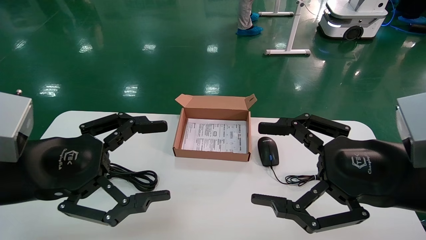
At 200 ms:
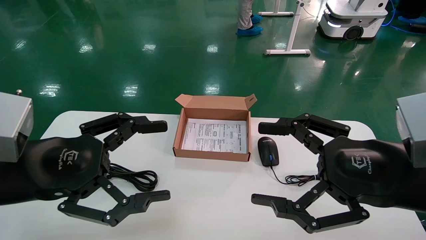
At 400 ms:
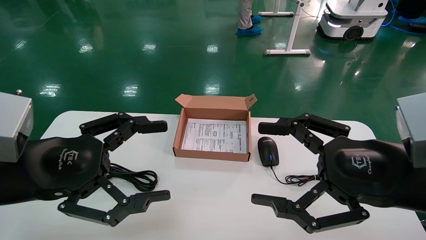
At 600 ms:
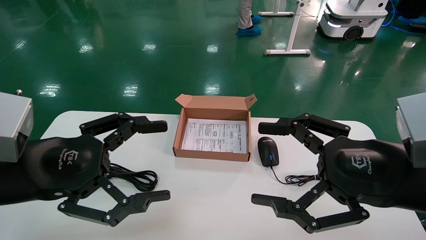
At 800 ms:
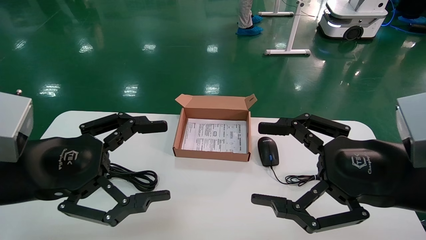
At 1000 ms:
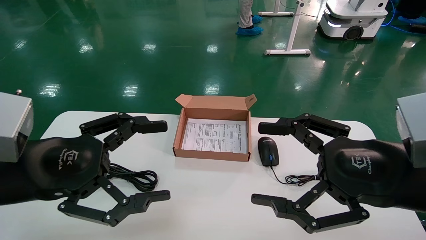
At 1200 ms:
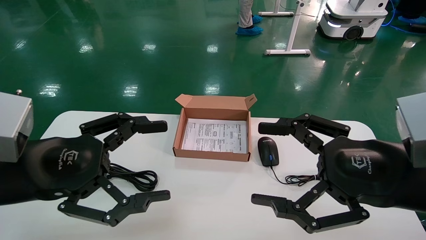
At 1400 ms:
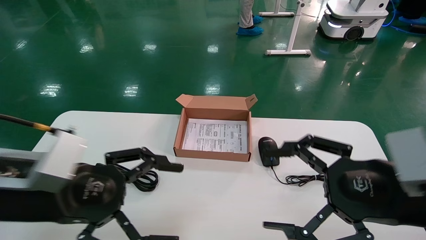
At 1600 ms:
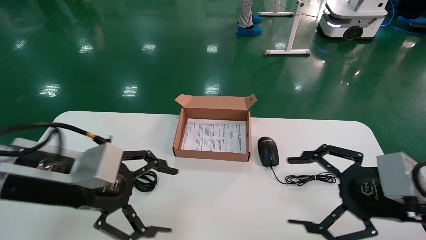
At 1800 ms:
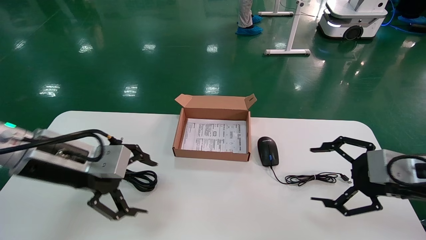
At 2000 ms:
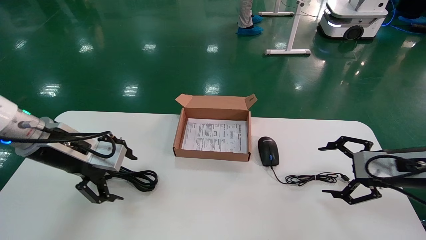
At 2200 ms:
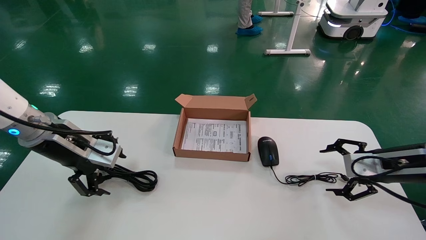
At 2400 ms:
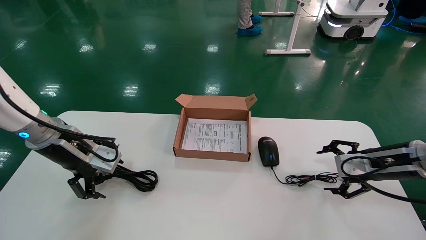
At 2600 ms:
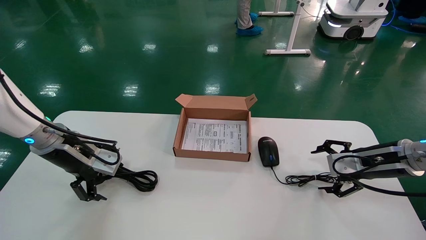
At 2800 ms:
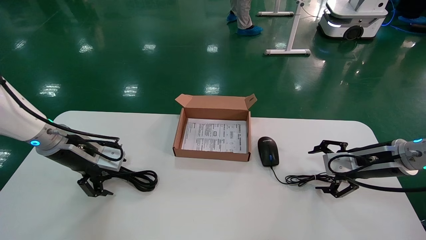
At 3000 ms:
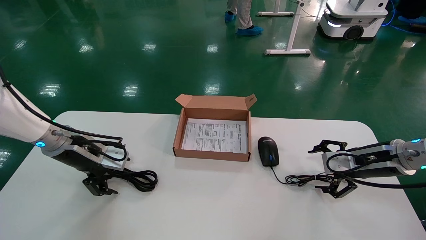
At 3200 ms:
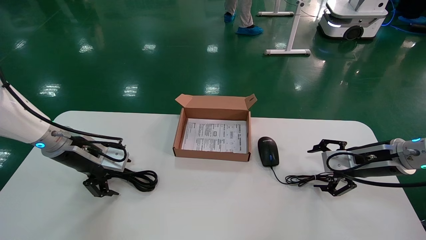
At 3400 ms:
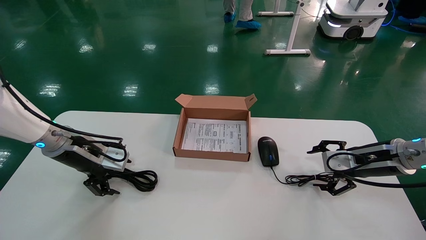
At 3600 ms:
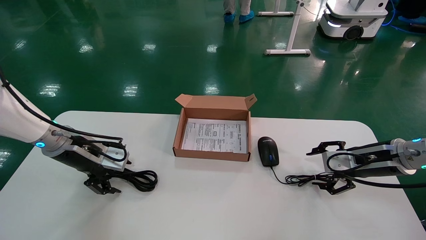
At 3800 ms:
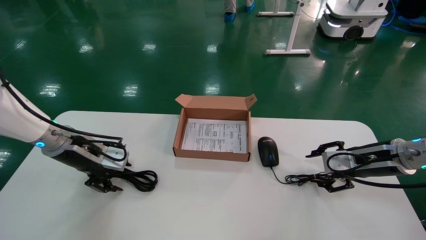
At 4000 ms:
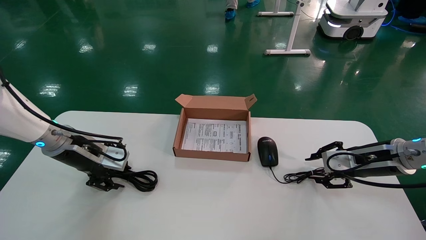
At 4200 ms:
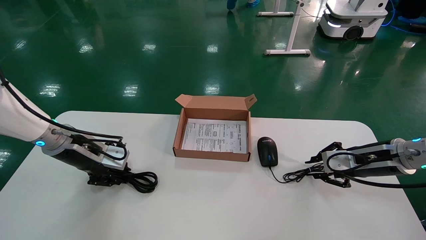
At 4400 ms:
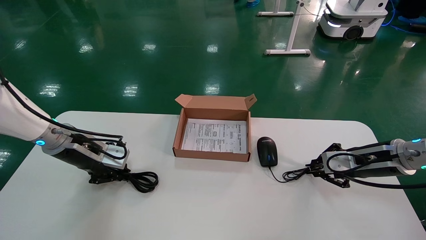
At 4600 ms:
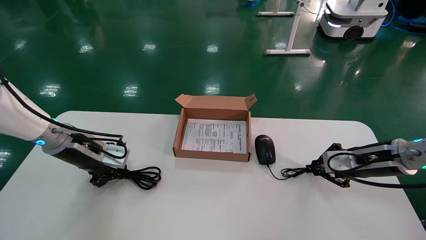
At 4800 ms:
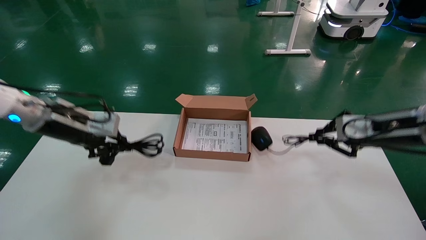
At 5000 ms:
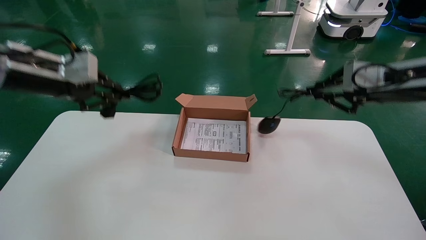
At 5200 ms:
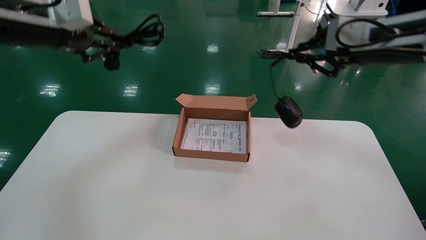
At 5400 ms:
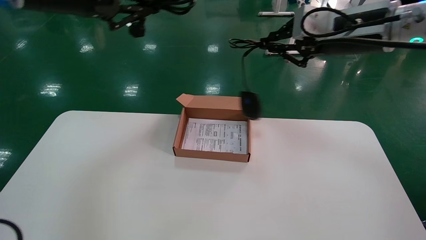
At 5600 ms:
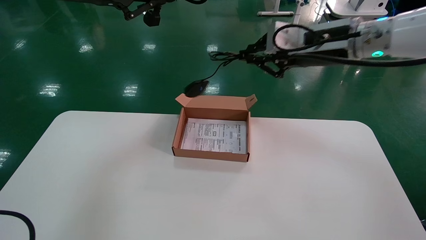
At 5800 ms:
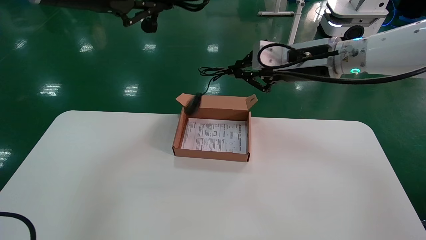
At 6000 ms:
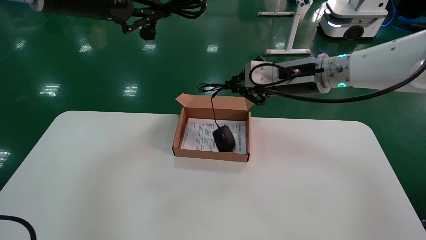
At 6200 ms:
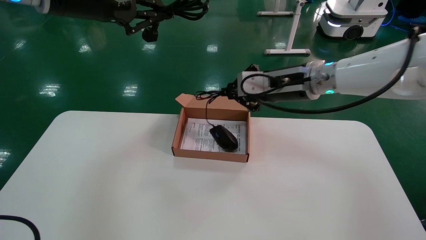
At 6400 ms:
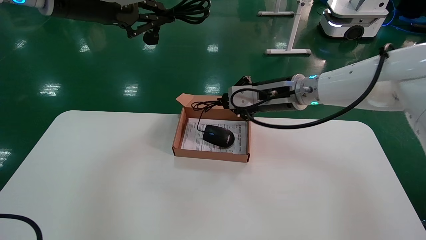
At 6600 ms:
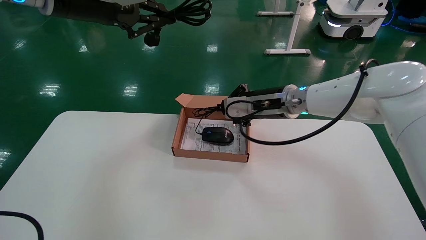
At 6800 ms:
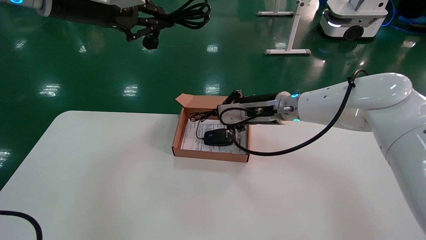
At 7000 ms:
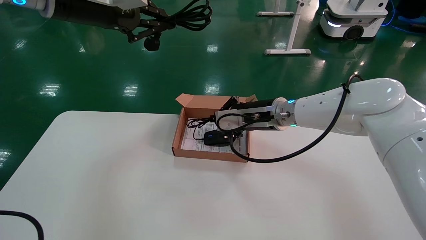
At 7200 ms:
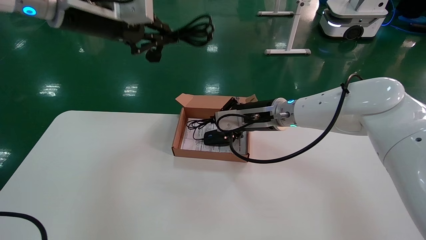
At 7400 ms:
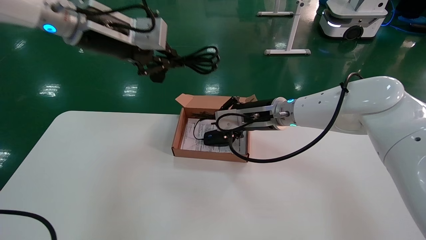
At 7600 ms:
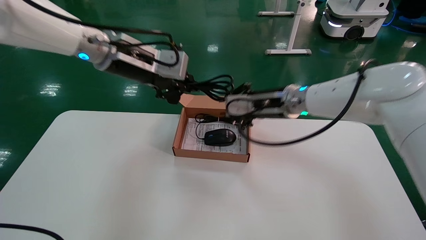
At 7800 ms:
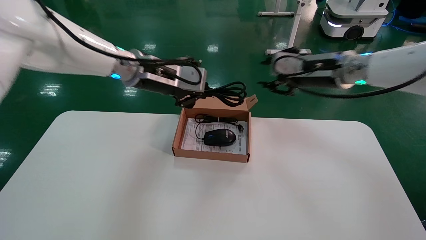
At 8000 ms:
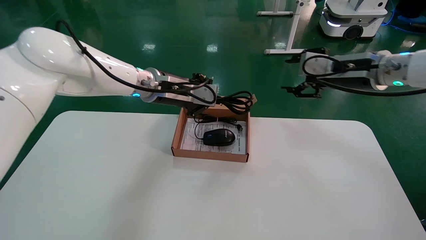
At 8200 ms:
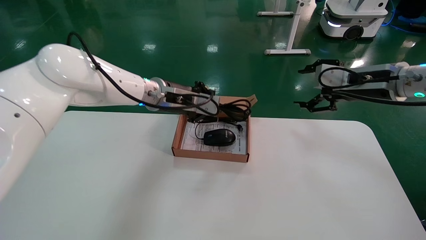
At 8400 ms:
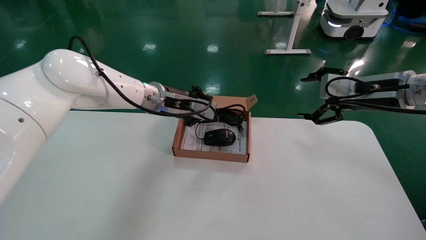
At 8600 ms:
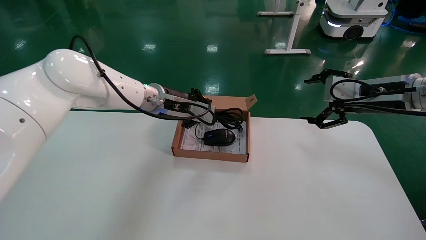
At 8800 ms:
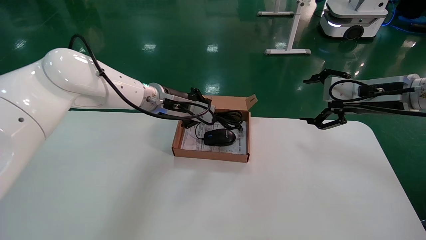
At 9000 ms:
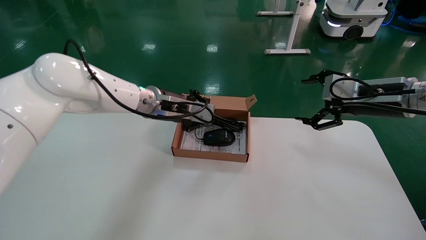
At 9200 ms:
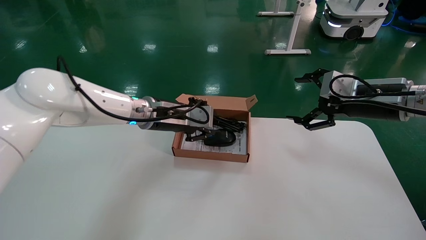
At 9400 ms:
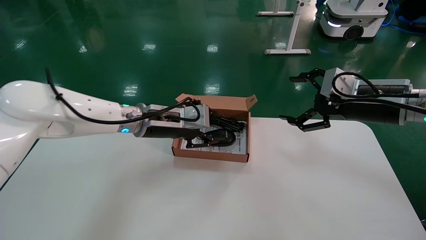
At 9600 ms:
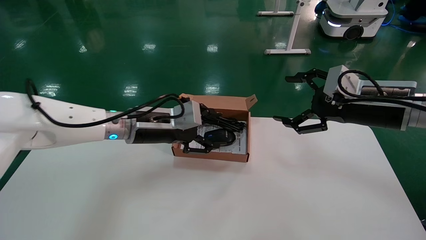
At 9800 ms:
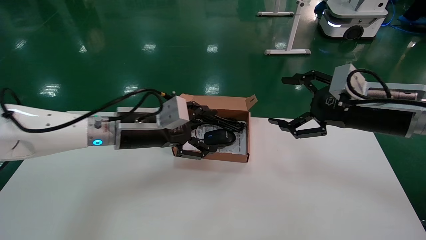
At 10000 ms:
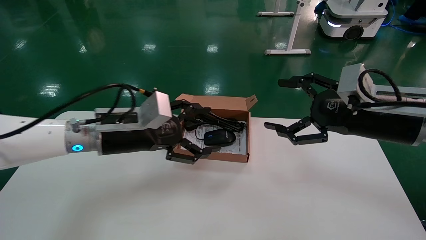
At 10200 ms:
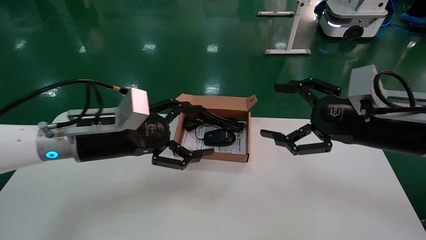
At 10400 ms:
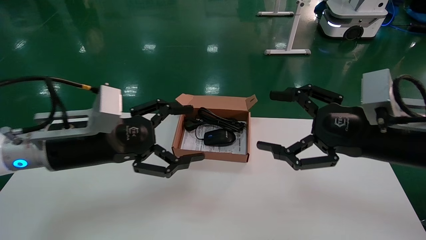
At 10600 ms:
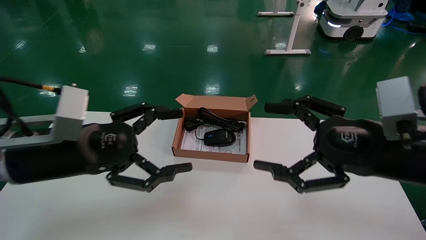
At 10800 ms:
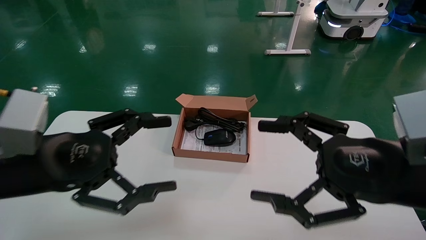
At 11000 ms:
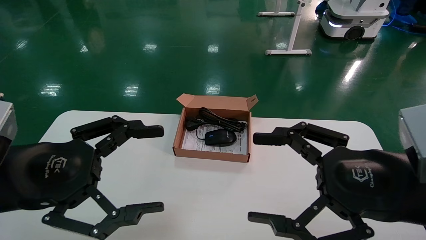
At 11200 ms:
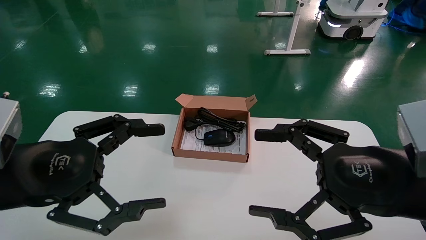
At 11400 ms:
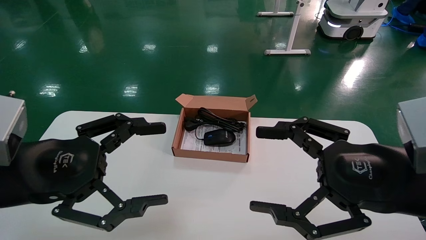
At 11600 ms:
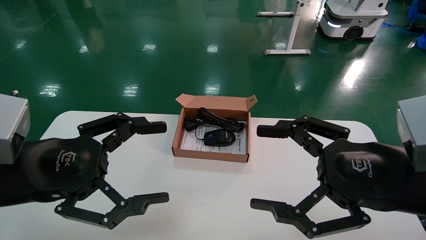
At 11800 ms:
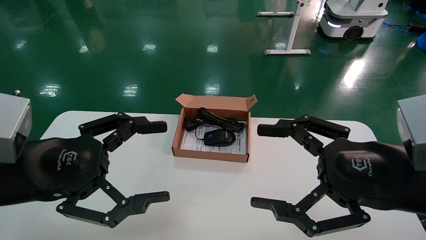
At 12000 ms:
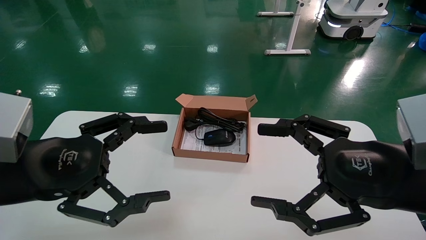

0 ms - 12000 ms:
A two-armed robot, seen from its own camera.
Step, 1600 ms - 4400 ms: Grab and lift both the mouse and power cord from the accessory packaging area at the same time.
Step, 4600 ms - 9400 ms: Place the mouse and power cord into the box.
0 ms - 1600 ms: The right gripper heads to the right, covering roughly 5 cm. Meanwhile the left gripper moves about 5 cm.
1600 ms - 3000 ms: The left gripper is displaced forward and to the left by approximately 15 cm. The right gripper is displaced forward by some 15 cm.
3000 ms - 4400 ms: The left gripper closes up; the right gripper closes up.
4400 ms - 6000 ms: The right gripper shifts some 25 cm to the left and upward; the left gripper goes some 25 cm upward.
6000 ms - 7600 ms: The right gripper travels downward by approximately 5 cm; the left gripper moves downward and to the right, approximately 10 cm.
7600 ms - 9000 ms: The right gripper is displaced to the right and backward by some 15 cm, and opens its fingers; the left gripper is displaced downward by approximately 15 cm.
9000 ms - 10400 ms: The left gripper is displaced backward and to the left by roughly 20 cm, and opens its fingers. The right gripper shifts roughly 15 cm backward.
10400 ms - 12000 ms: The two grippers go roughly 10 cm backward.

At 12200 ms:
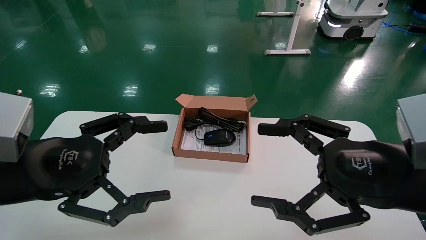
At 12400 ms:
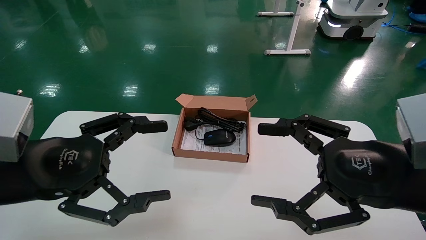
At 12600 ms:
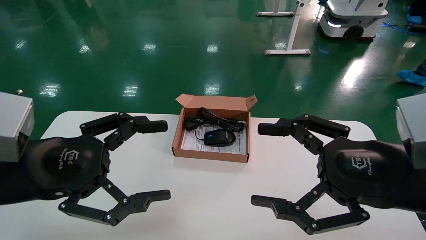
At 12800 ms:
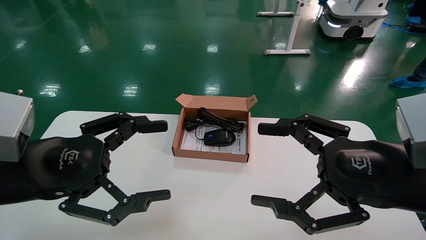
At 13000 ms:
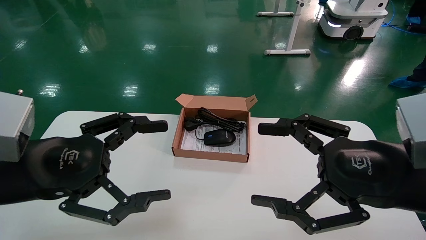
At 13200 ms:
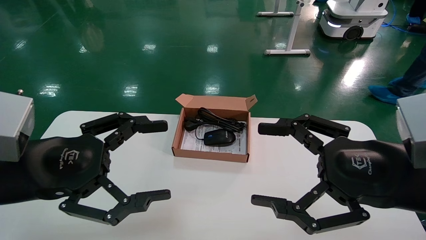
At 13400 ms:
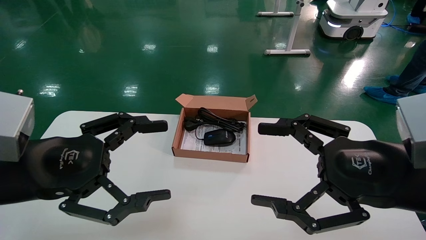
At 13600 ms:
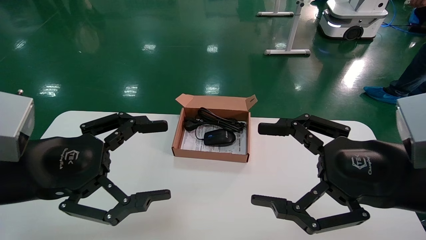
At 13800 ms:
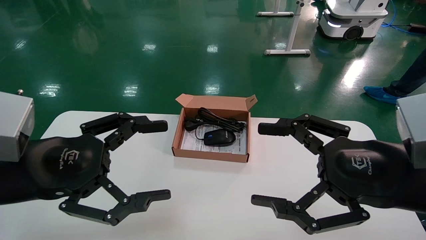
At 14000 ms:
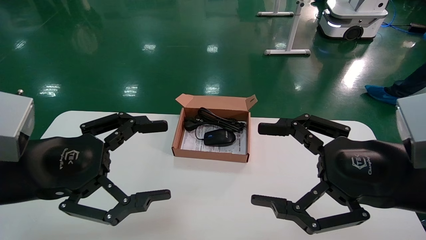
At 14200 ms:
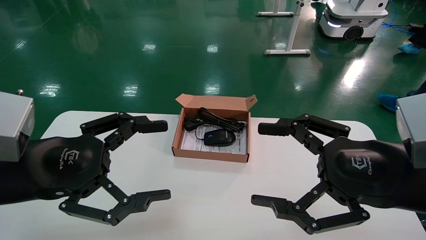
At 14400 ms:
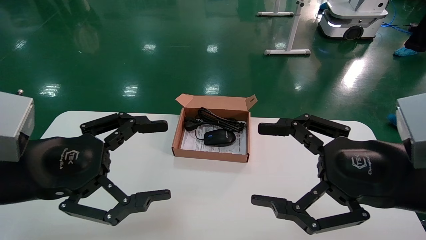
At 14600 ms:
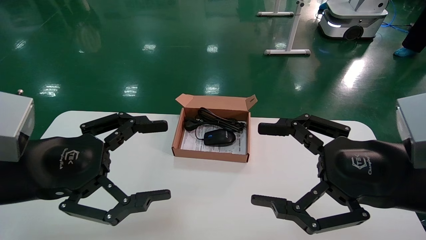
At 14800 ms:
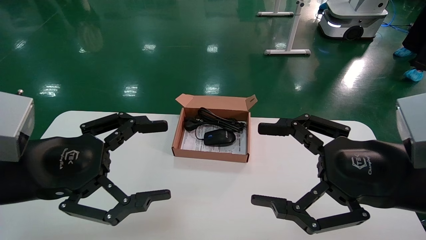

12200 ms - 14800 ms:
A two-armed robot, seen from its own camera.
12200 ms - 14800 ms: Both grippers stay put.
